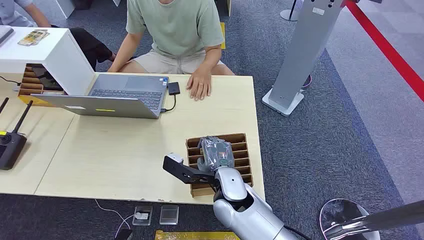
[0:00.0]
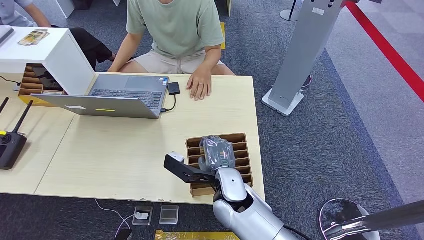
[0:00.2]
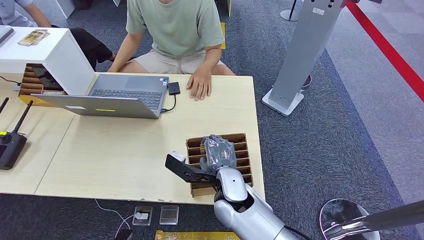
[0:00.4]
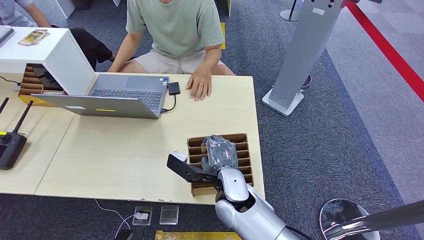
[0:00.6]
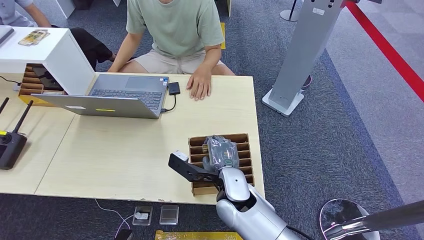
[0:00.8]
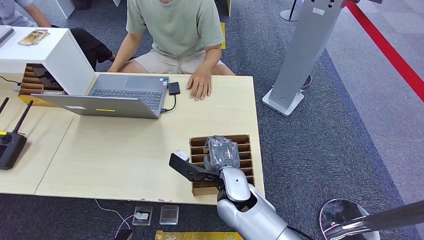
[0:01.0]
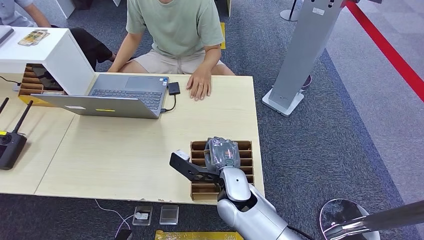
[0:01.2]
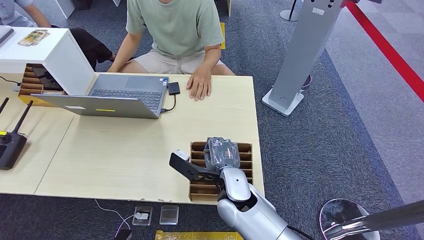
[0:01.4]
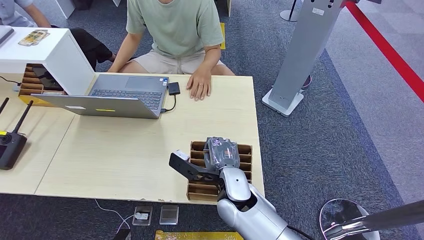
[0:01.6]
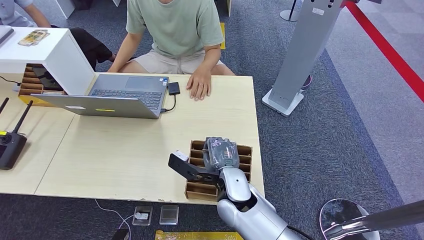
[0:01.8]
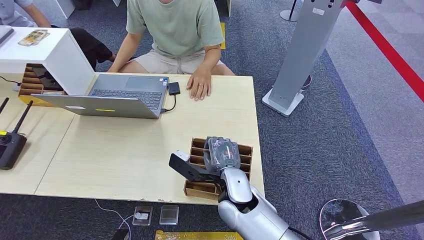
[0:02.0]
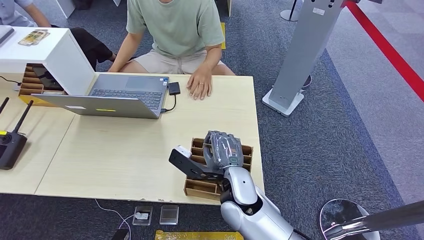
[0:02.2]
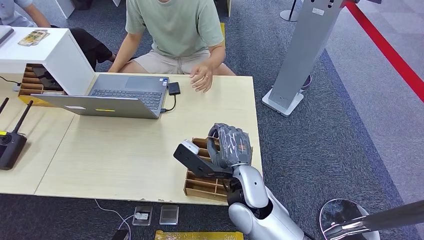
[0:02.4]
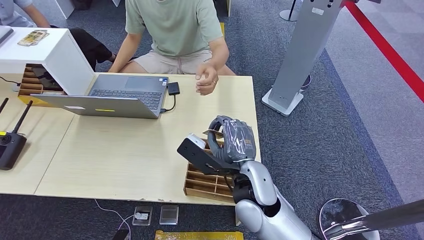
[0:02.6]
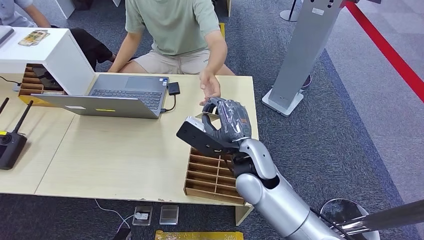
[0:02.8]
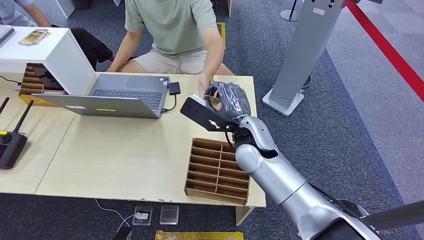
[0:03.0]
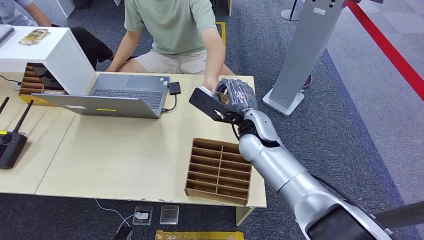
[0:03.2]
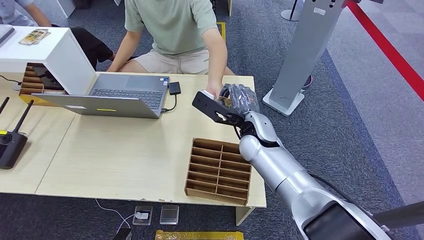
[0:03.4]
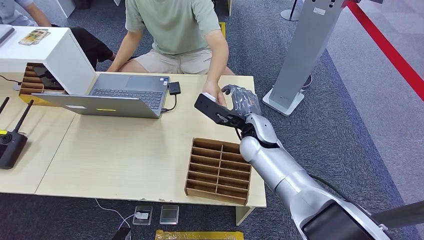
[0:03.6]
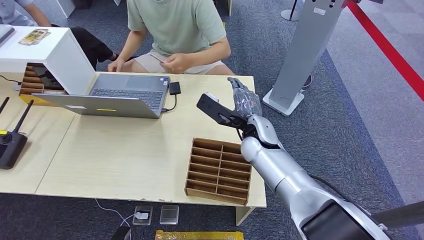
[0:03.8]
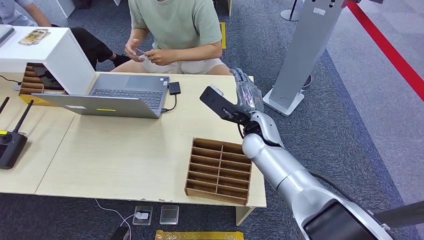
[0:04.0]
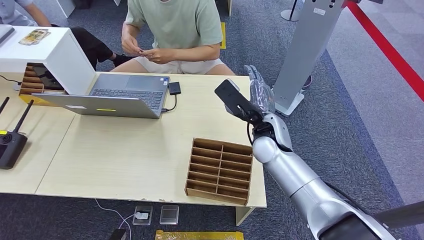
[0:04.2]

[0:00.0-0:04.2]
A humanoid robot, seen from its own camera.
Task of the whole recording: Pick up the card and hand it over to the target person.
Step, 0:00.0 to 0:02.2: Pick up the key card from the card box.
Step, 0:03.2 to 0:04.2: Hand the key card to the target.
0:01.4 to 0:02.8: The right hand goes about 15 cm forward and upward.
0:02.8 to 0:04.2: The right hand heads to the right and backward, covering some 15 cm.

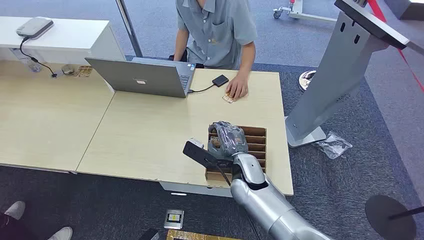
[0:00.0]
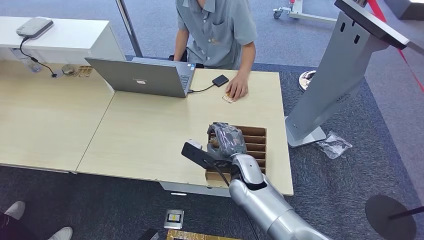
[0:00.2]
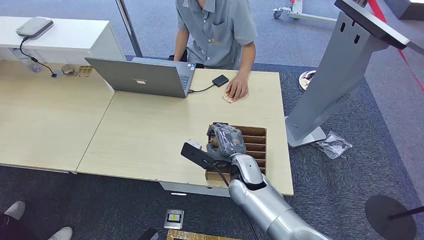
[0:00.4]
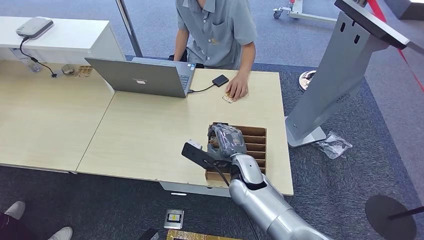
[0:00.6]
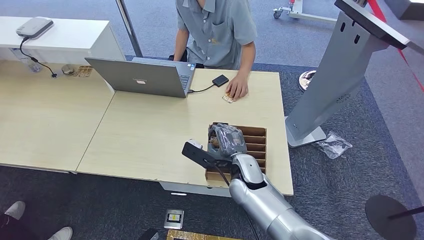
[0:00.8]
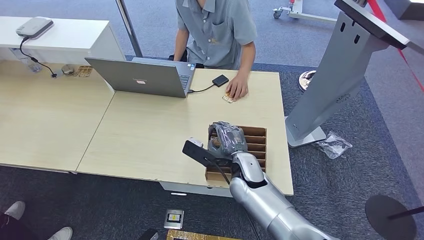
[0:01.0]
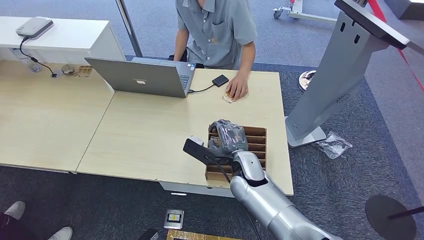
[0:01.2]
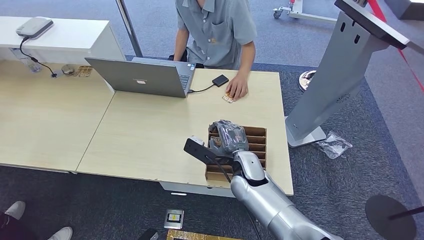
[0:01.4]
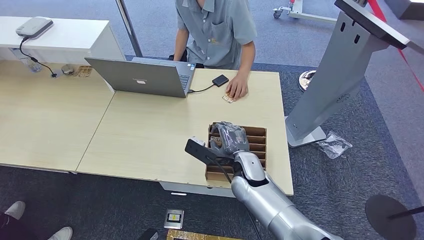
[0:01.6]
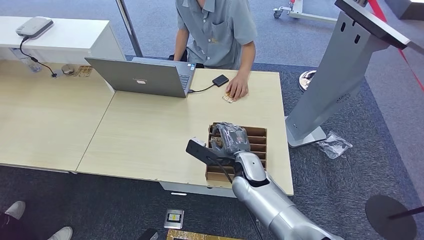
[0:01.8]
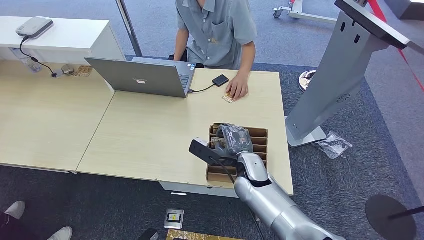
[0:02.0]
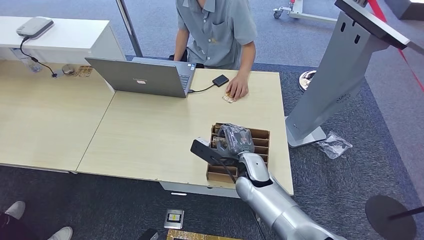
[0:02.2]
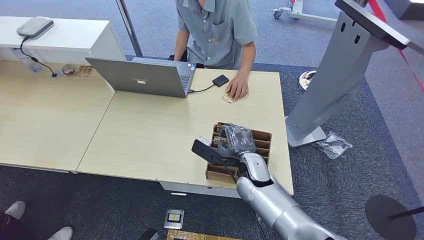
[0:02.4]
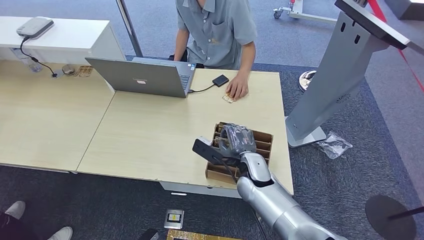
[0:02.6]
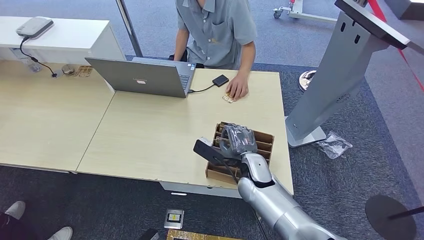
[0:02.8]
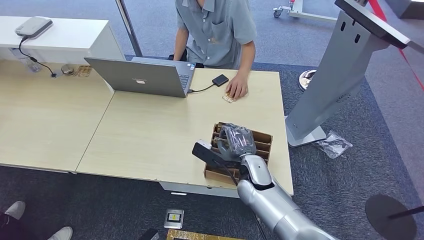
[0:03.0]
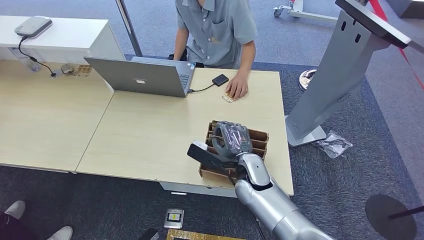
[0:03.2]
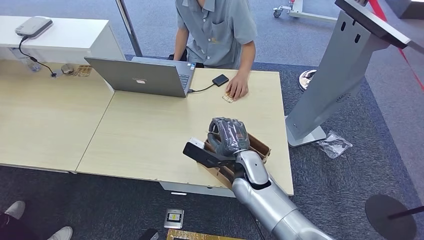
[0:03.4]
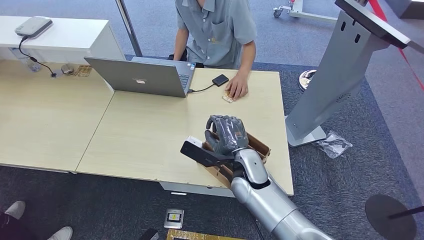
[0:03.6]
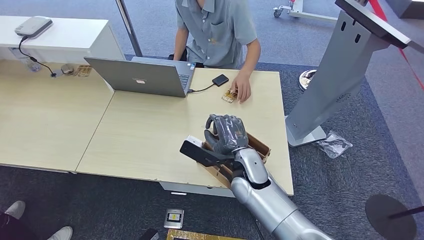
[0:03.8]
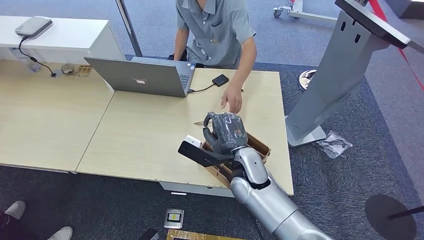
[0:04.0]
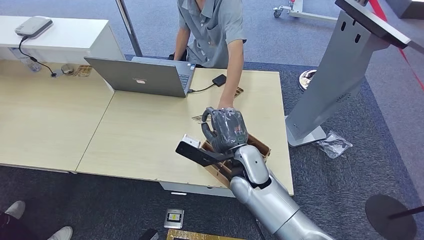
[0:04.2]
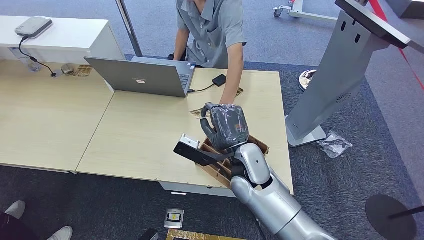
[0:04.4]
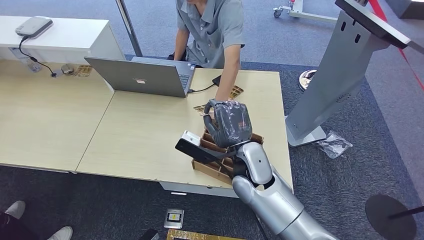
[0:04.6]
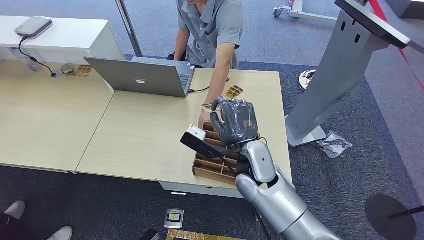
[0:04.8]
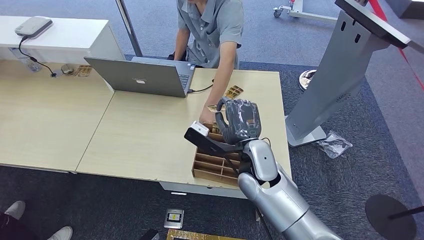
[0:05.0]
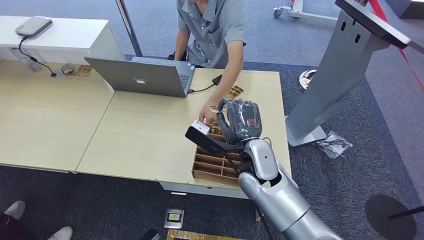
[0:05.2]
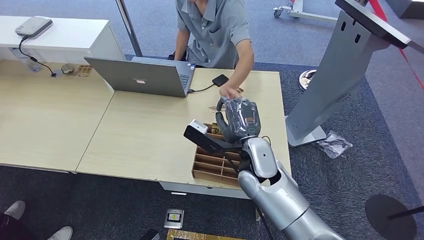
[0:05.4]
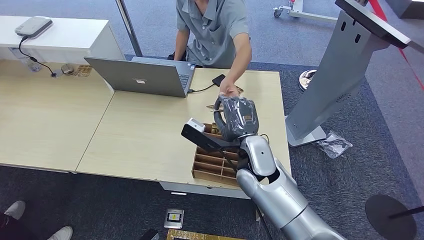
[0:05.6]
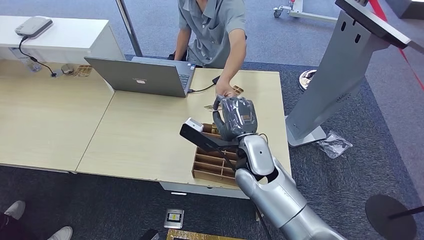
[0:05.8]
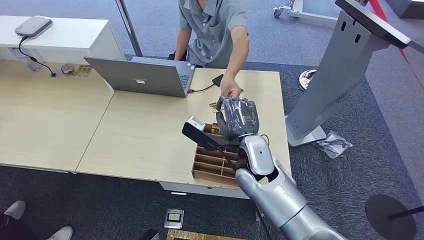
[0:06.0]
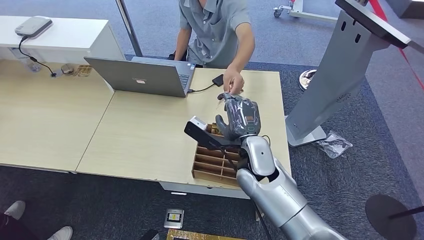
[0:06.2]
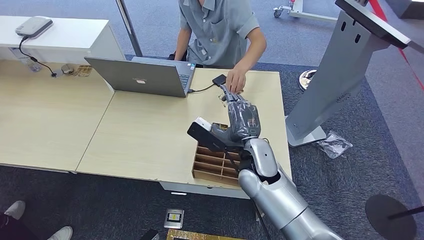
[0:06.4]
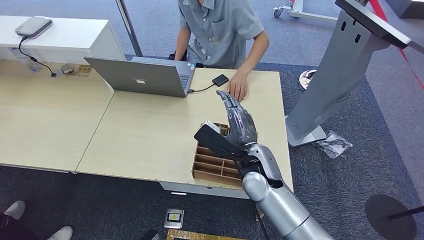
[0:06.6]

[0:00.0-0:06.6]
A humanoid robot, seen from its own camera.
Task of the whole recording: Pick up the card and hand it over to the target person.
Step, 0:00.0 to 0:03.8: Pick up the key card from the card box.
Step, 0:04.0 to 0:06.6: Hand the key card to the target.
0:01.6 to 0:03.2: There are only small adjustments of the hands.
0:03.2 to 0:05.0: There are only small adjustments of the hands.
